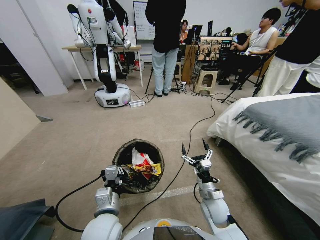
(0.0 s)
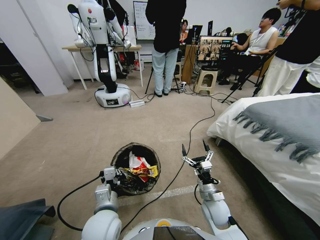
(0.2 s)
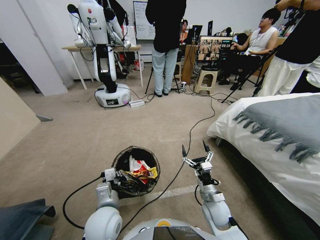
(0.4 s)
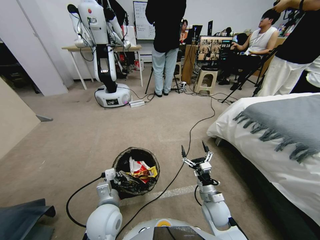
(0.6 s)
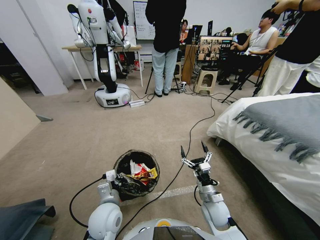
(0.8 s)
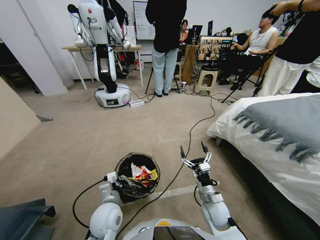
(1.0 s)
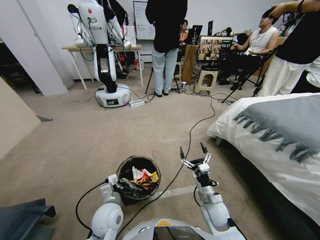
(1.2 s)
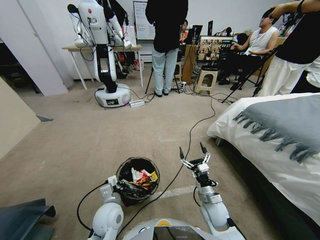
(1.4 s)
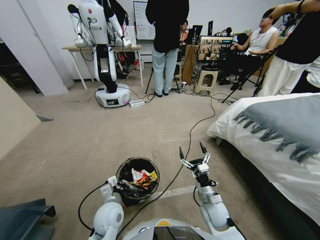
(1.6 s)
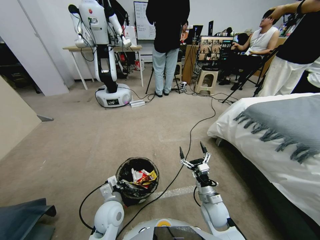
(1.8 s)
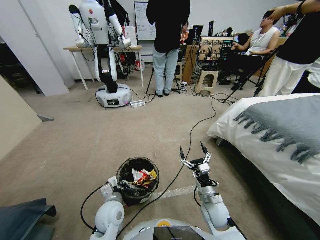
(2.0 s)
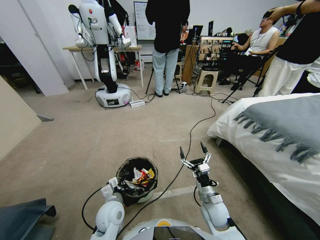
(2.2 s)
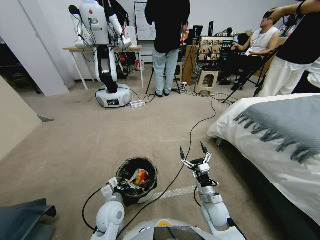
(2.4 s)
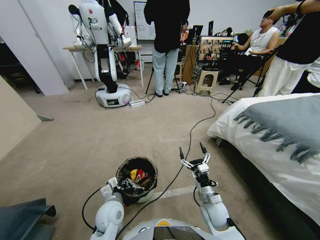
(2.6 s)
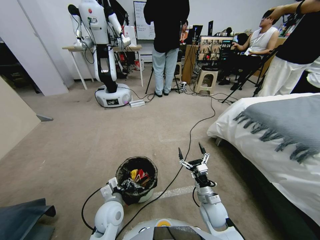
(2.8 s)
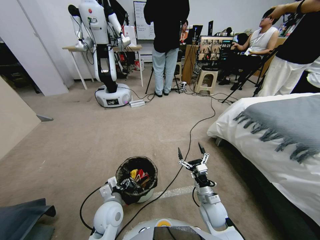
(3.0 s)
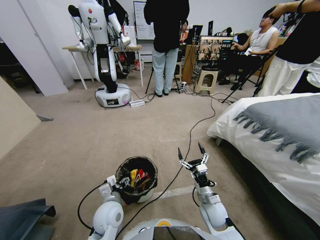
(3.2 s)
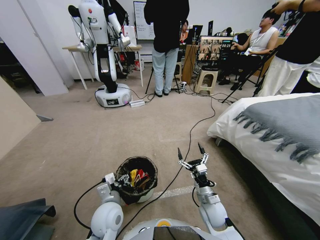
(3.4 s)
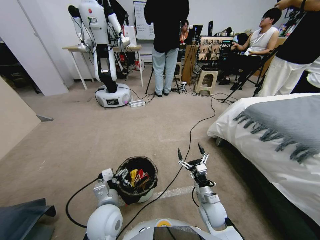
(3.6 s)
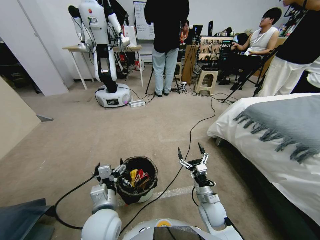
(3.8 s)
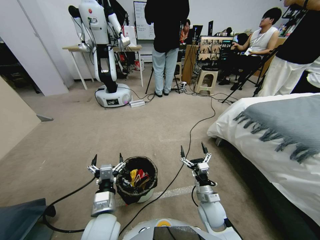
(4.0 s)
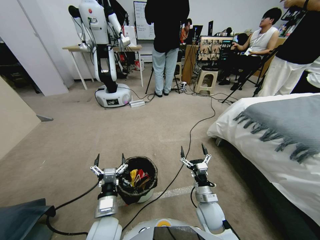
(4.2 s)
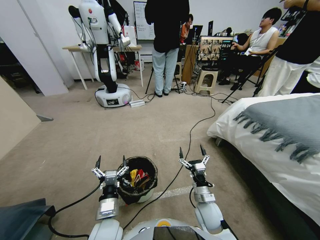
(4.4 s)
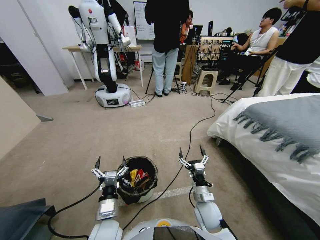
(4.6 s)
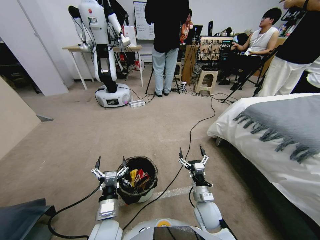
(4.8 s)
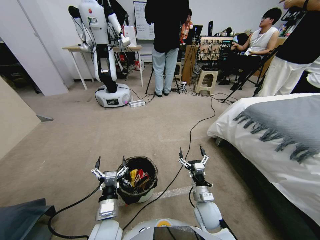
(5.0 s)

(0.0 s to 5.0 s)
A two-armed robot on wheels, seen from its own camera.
Task of the whole recording: Pick up the trash bin, then pick up the garbage from the floor and place it into the trash bin.
0.0 s - 1.6 s: The left gripper is displaced downward by roughly 10 cm.
1.6 s - 3.4 s: The left gripper opens.
3.4 s - 5.0 s: The left gripper changes place by roughly 5 cm.

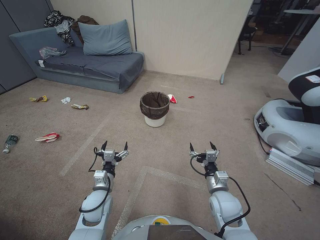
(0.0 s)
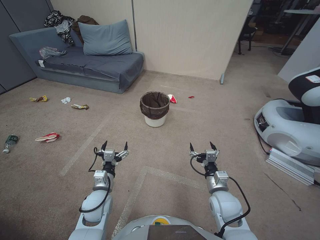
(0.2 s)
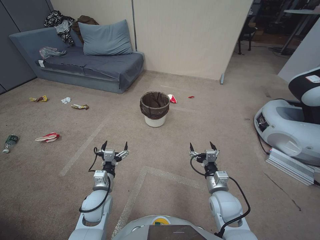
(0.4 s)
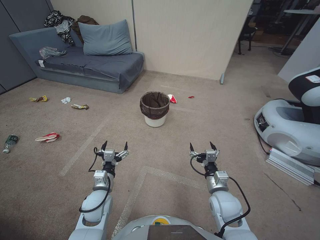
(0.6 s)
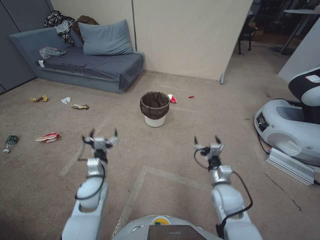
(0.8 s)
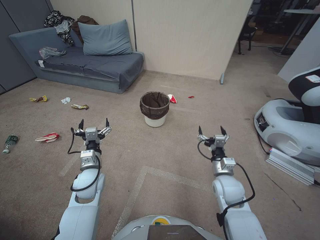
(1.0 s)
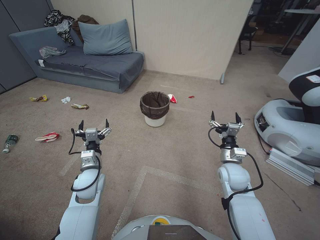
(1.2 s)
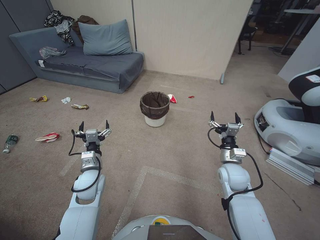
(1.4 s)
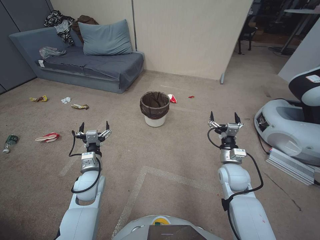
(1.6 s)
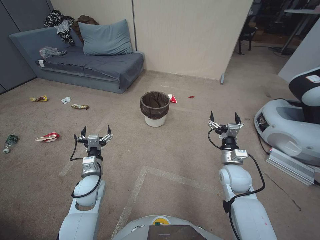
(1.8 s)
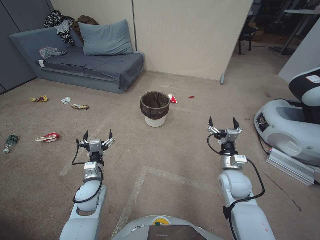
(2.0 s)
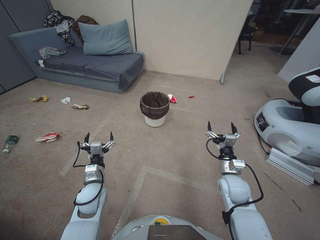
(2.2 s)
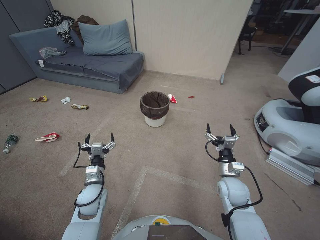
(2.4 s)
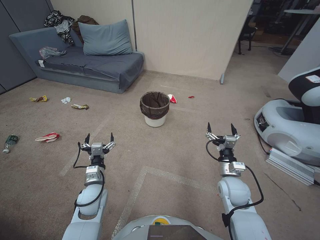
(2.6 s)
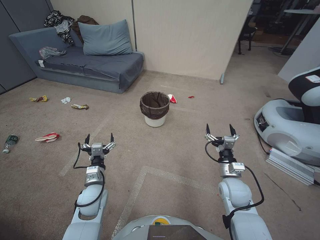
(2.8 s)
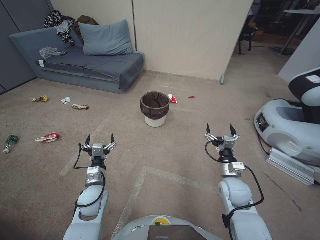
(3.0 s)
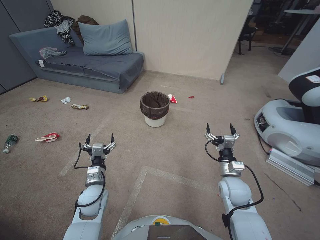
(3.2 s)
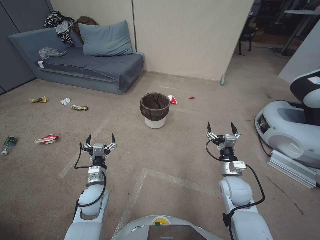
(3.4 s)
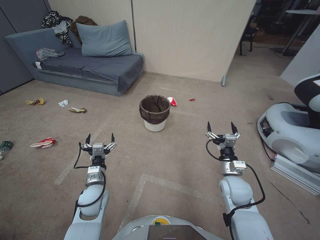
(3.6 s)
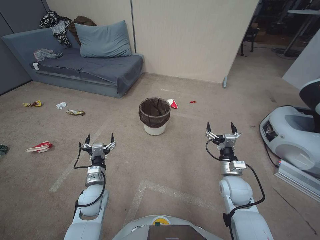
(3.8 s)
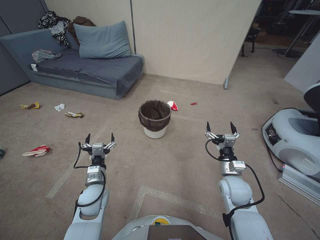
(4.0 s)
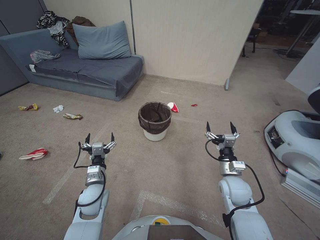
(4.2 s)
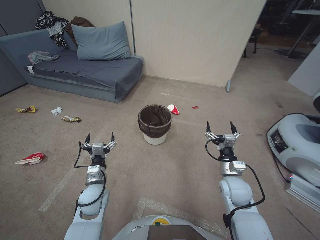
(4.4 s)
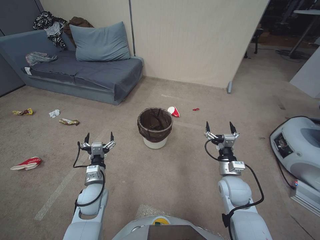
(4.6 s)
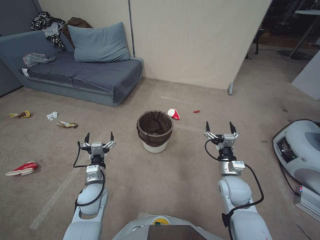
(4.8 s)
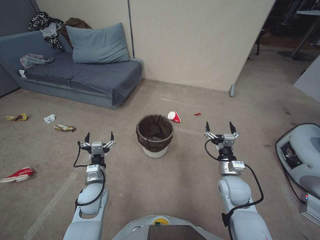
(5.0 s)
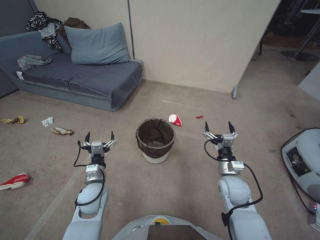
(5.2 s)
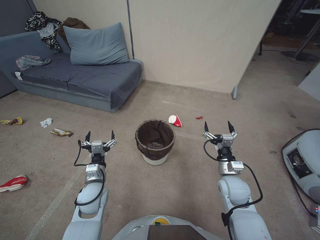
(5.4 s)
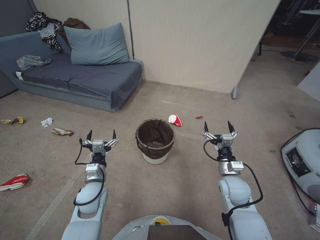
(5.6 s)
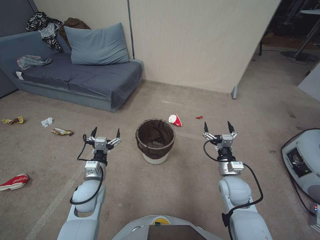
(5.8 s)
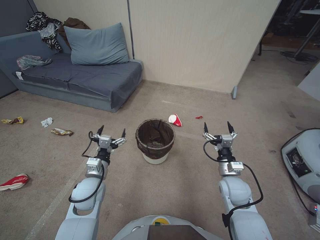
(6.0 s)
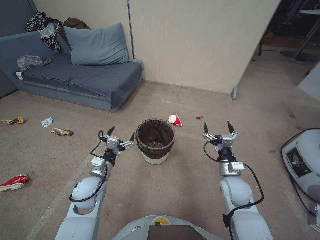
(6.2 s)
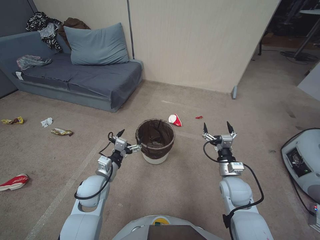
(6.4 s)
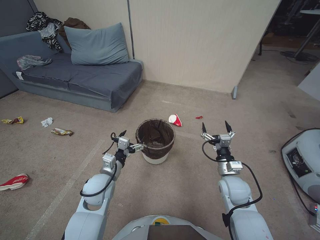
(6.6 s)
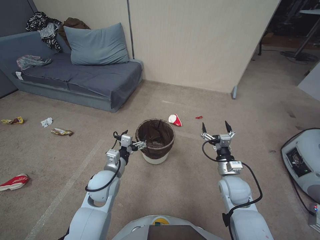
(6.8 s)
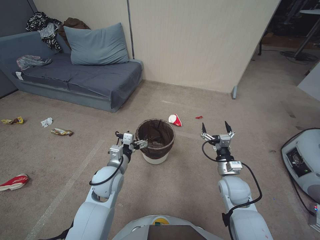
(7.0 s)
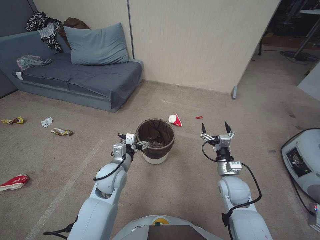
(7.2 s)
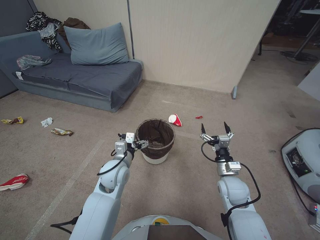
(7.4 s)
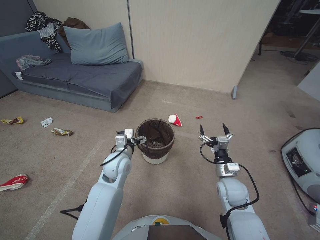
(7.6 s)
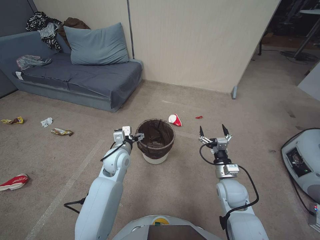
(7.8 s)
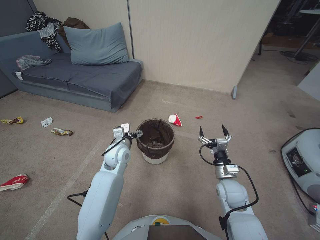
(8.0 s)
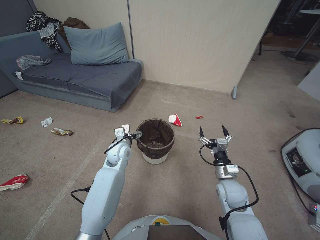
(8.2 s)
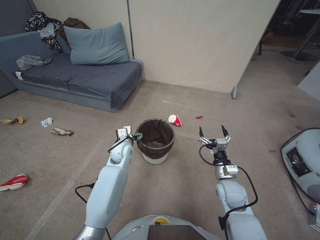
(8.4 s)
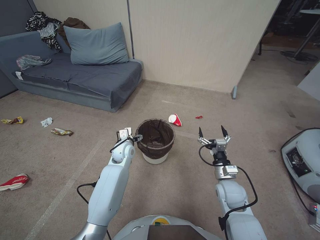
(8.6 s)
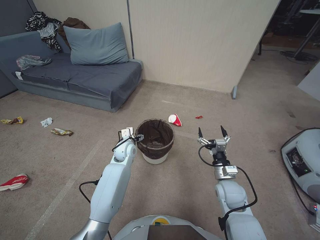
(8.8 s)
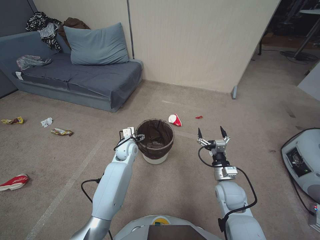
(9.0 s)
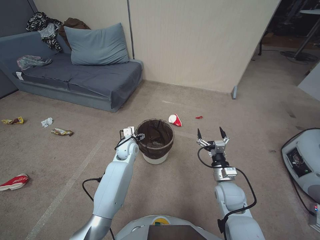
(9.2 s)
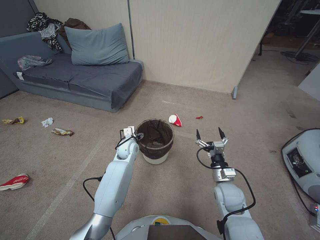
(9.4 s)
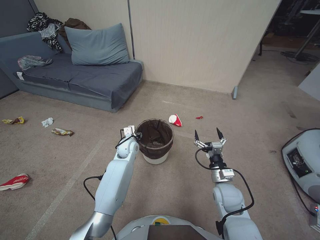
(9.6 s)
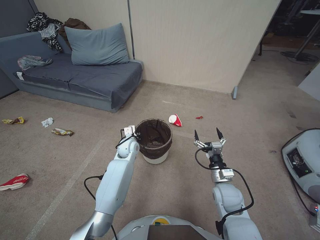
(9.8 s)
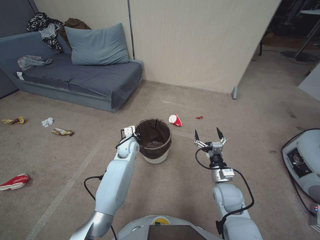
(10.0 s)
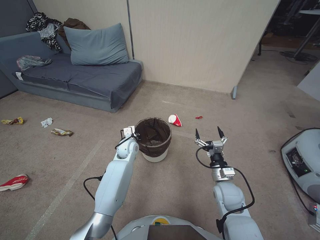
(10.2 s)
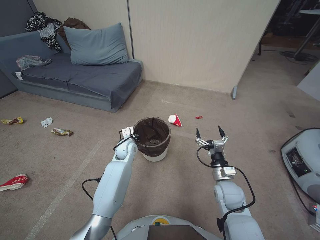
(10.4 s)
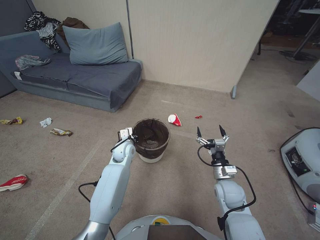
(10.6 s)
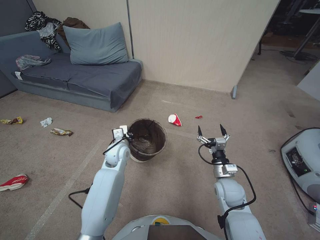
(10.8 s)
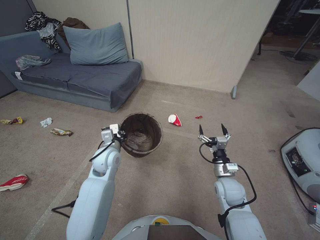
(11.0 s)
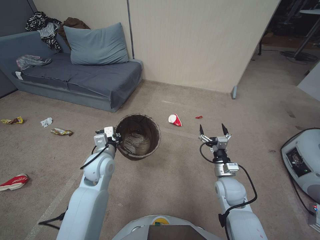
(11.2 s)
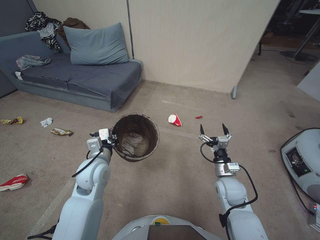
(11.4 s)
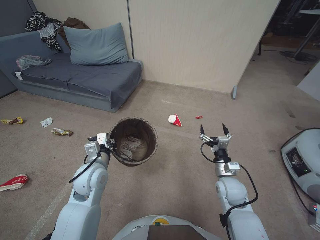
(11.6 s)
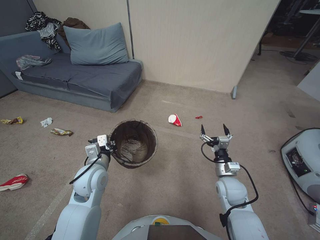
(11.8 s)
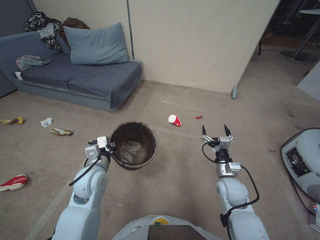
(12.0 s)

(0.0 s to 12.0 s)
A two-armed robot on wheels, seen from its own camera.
Task of the whole recording: Pick up the trash bin, then pick up the garbage from the floor and place it into the trash bin.
1.6 s - 3.0 s: The left gripper shifts by some 5 cm, while the right gripper changes place by about 5 cm.
4.4 s - 6.0 s: The grippers move only a little.
6.0 s - 7.6 s: The left gripper moves to the right and forward, about 10 cm.
7.6 s - 9.0 s: The left gripper shifts about 10 cm forward and downward.
9.0 s - 10.4 s: The left gripper closes.
10.4 s - 12.0 s: The left gripper is displaced backward, upward and to the left by roughly 20 cm.

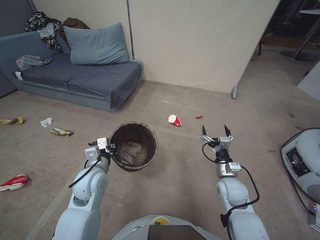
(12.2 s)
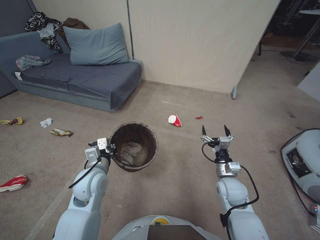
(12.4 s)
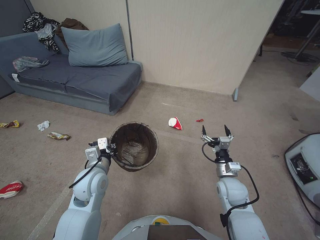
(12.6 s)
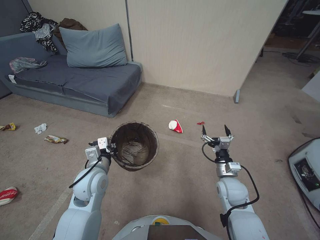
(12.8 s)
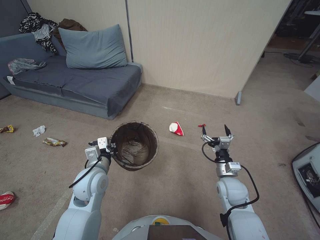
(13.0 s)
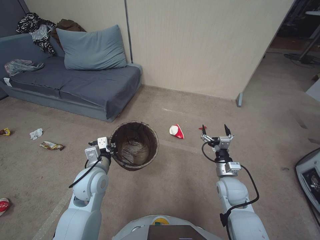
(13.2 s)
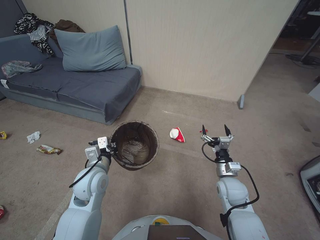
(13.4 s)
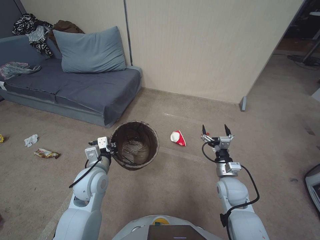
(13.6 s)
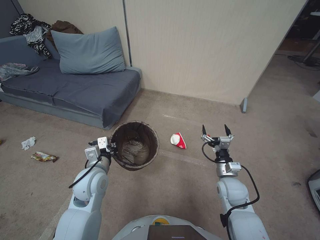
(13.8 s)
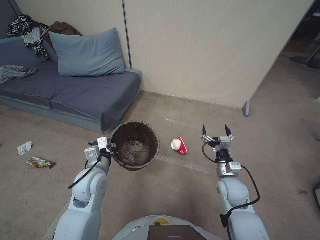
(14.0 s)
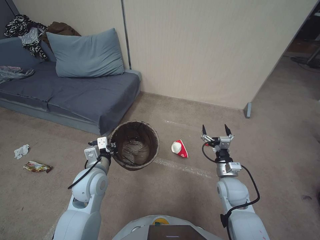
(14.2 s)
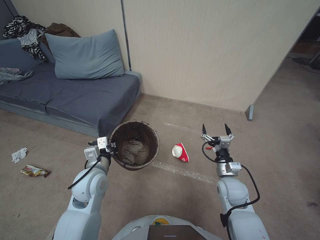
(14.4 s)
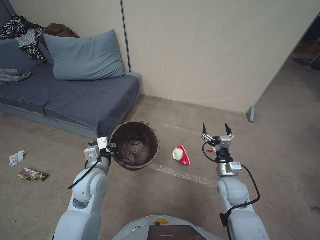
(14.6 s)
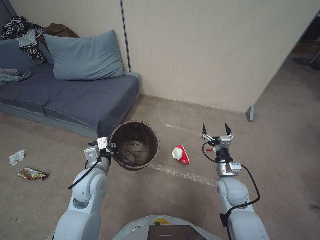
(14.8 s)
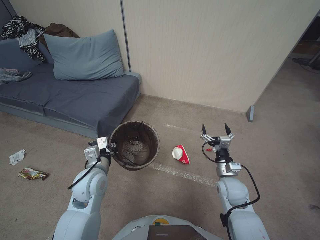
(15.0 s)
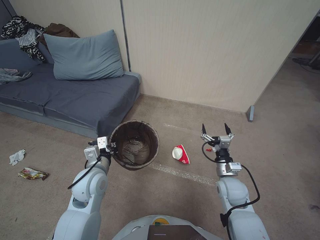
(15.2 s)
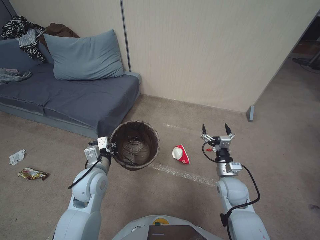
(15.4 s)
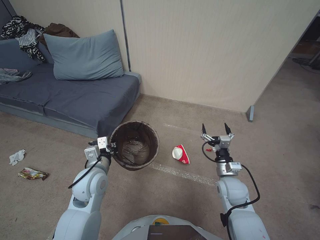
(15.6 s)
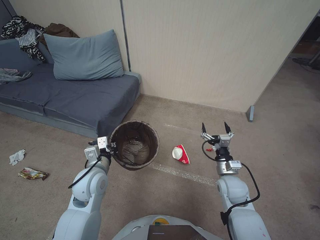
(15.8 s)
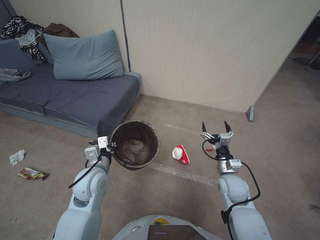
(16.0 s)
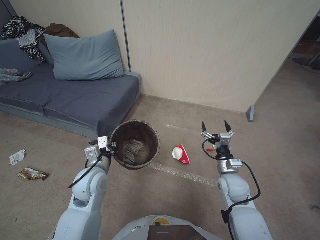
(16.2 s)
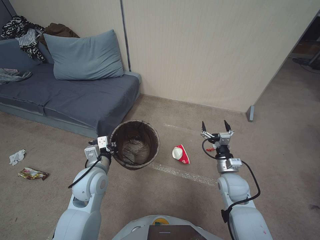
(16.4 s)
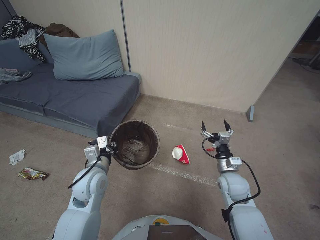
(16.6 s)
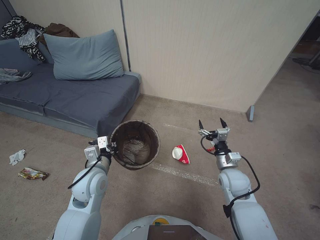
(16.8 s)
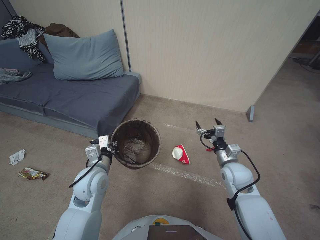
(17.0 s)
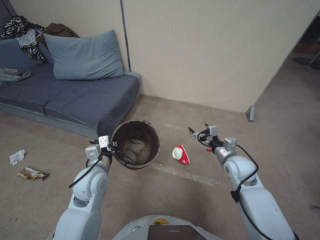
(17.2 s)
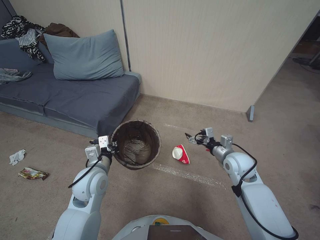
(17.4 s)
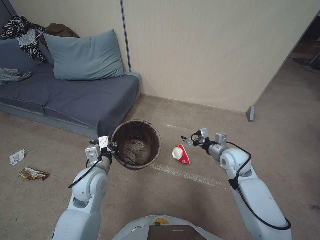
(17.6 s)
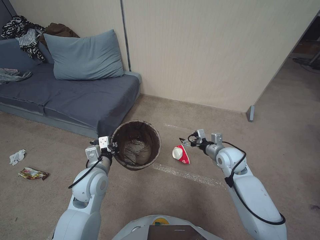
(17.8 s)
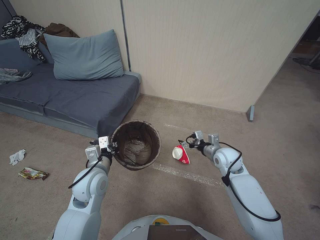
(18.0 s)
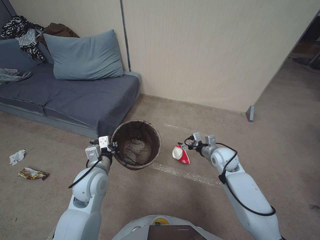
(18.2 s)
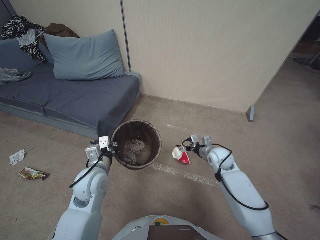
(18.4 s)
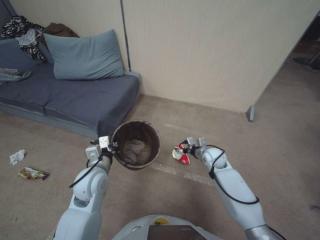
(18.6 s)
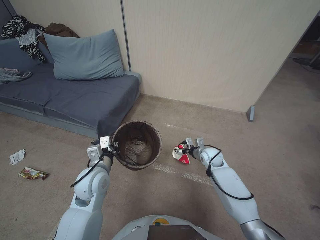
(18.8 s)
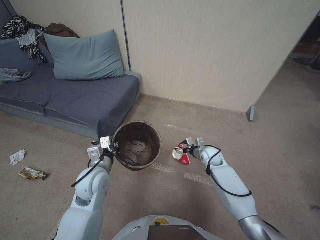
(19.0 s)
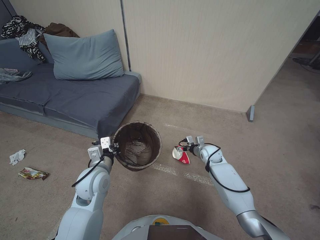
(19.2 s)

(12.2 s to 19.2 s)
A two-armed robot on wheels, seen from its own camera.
Task of the whole recording: Pick up the trash bin, then pick up the garbage from the floor and place it into the trash bin.
12.2 s - 15.0 s: Both grippers stay about where they are.
15.0 s - 16.4 s: Neither gripper changes place.
16.4 s - 17.8 s: The right gripper shifts some 10 cm forward and upward.
17.8 s - 19.2 s: The right gripper moves downward and forward, approximately 15 cm.
